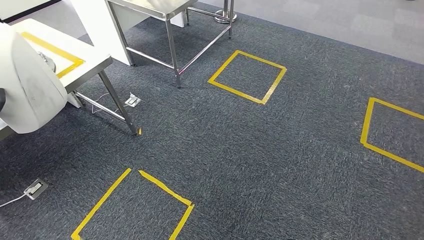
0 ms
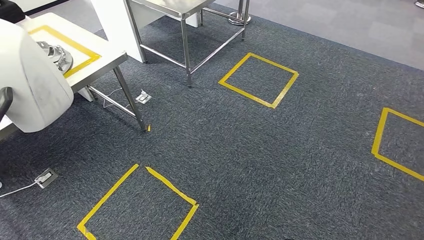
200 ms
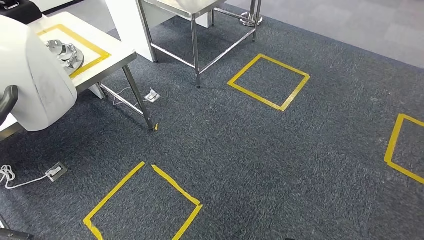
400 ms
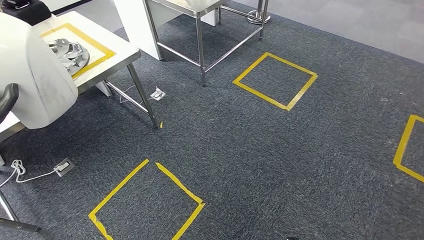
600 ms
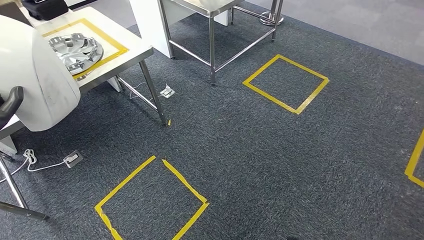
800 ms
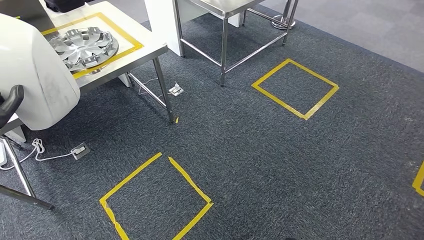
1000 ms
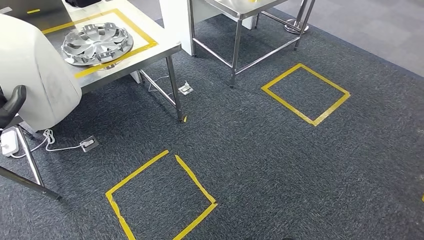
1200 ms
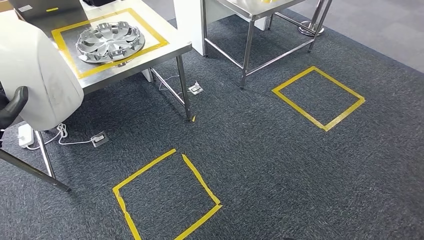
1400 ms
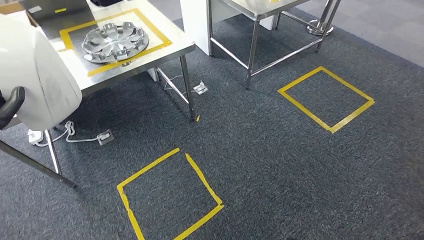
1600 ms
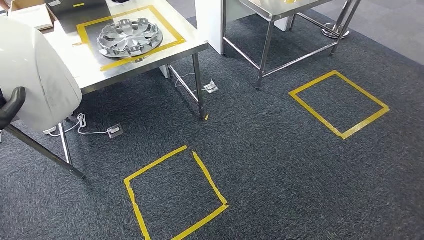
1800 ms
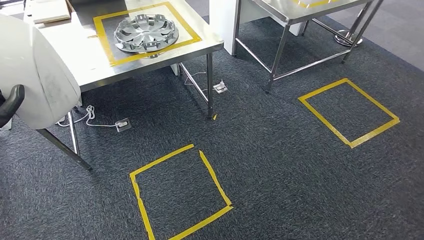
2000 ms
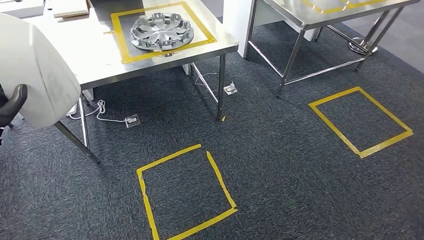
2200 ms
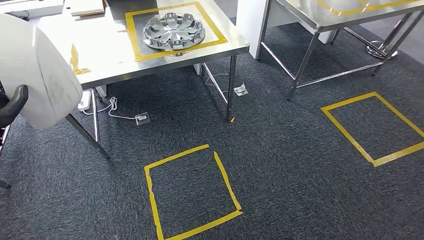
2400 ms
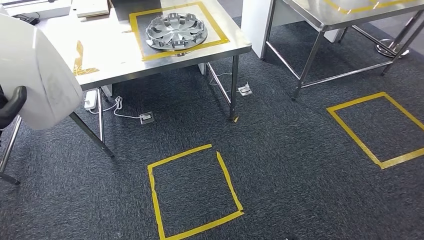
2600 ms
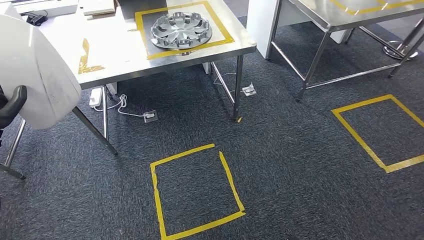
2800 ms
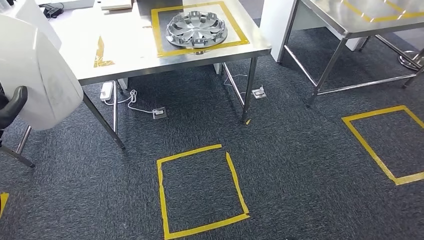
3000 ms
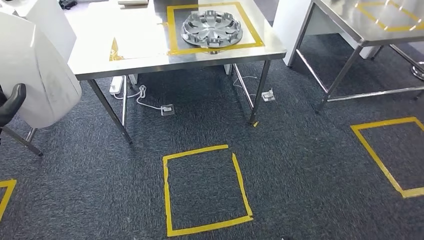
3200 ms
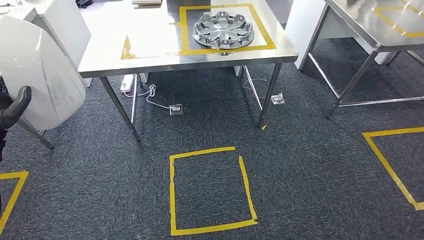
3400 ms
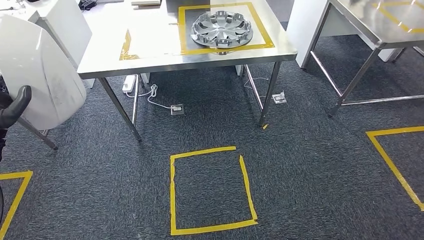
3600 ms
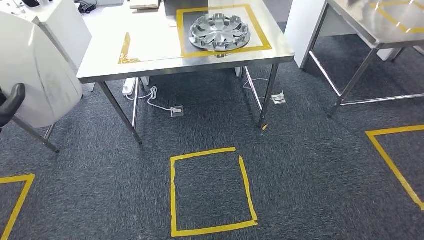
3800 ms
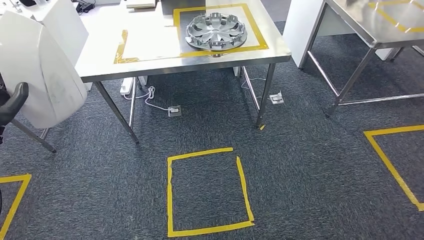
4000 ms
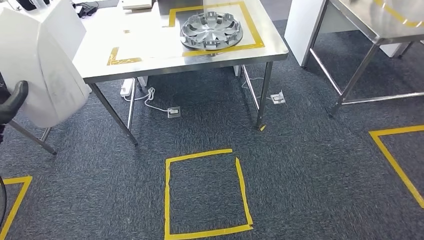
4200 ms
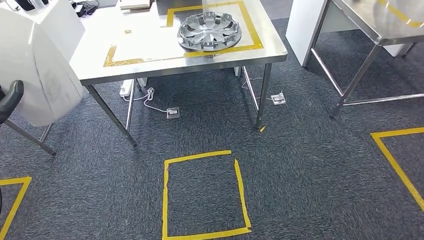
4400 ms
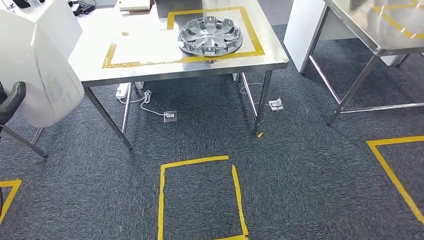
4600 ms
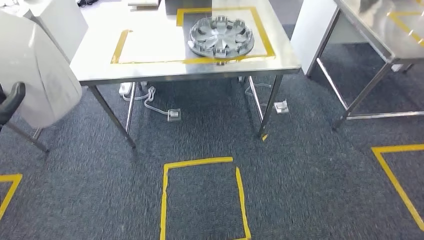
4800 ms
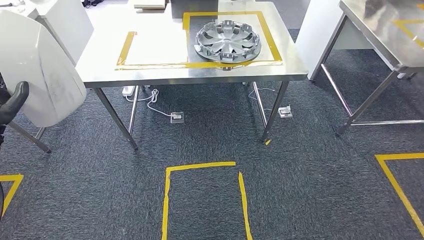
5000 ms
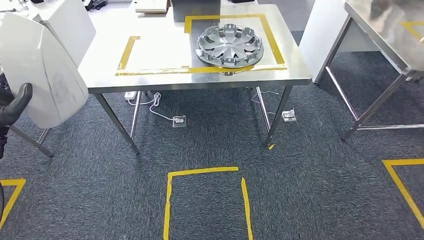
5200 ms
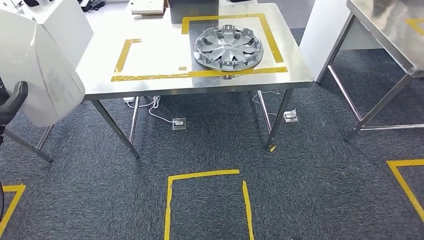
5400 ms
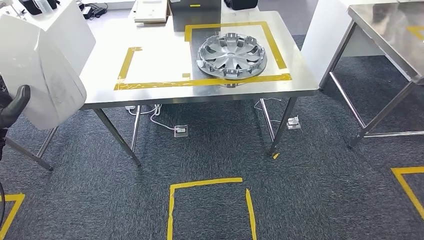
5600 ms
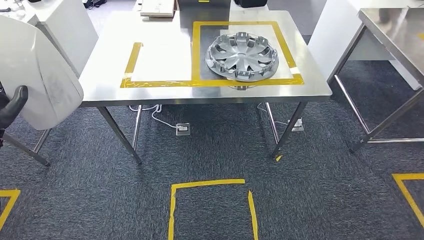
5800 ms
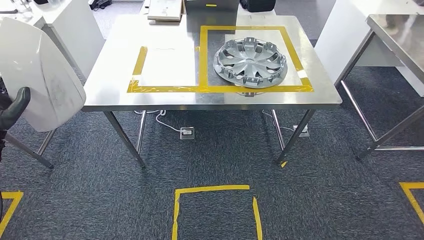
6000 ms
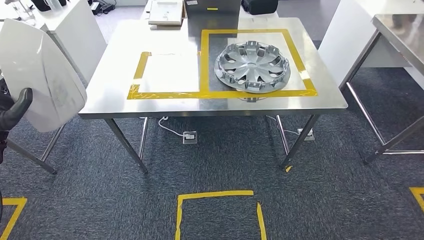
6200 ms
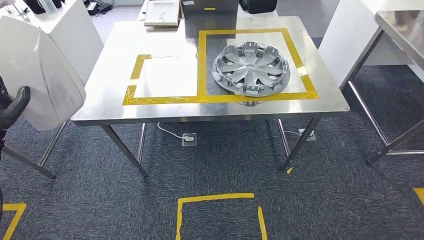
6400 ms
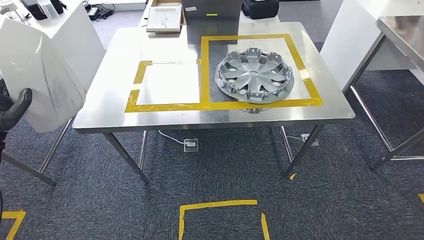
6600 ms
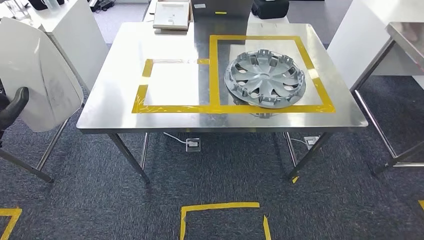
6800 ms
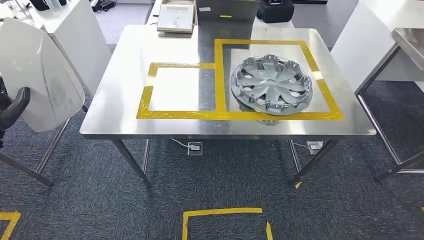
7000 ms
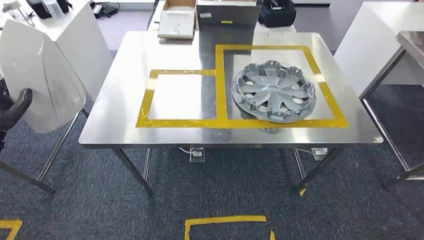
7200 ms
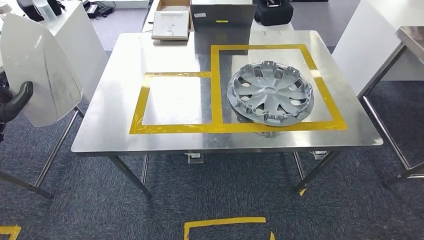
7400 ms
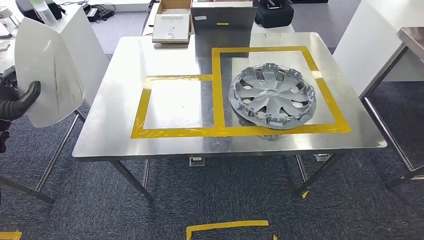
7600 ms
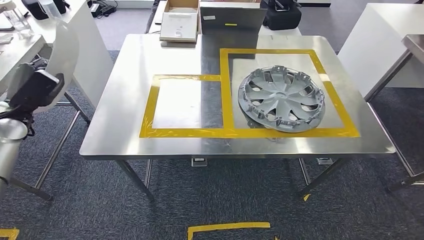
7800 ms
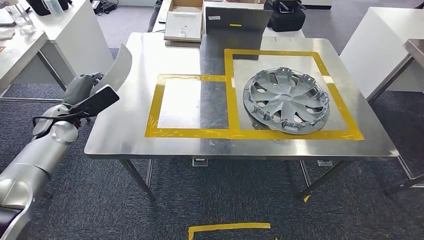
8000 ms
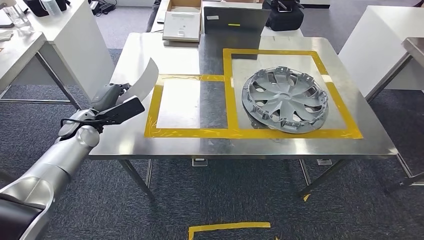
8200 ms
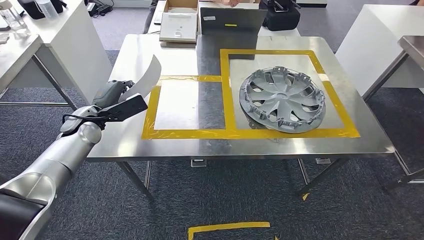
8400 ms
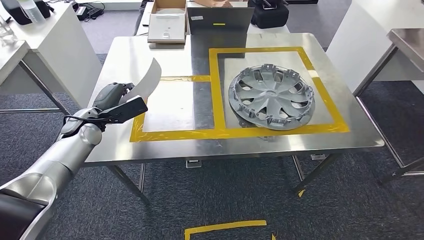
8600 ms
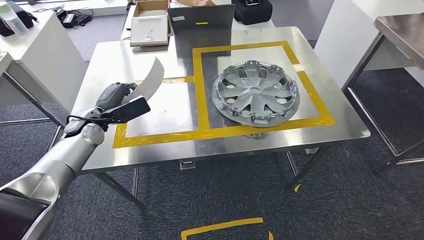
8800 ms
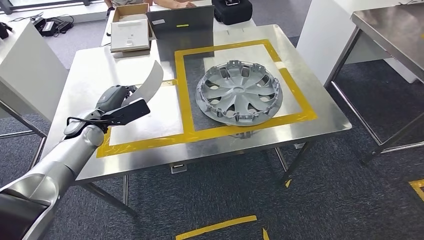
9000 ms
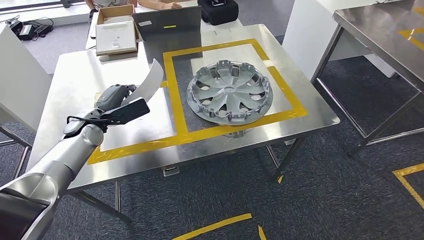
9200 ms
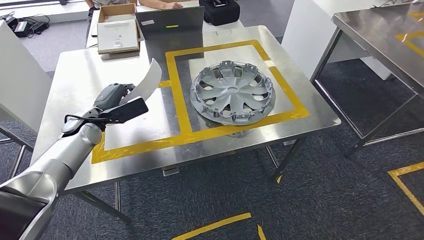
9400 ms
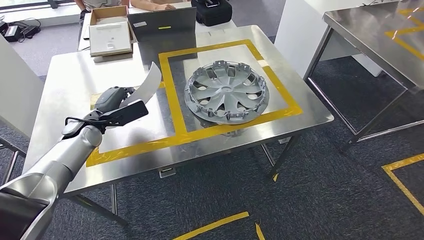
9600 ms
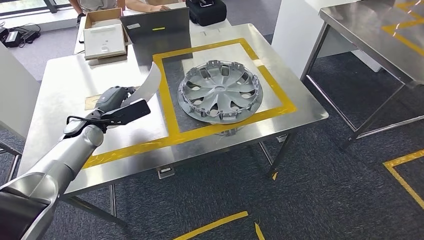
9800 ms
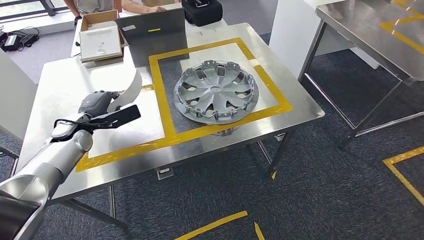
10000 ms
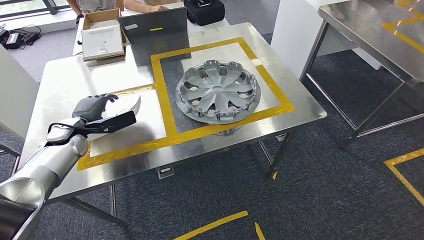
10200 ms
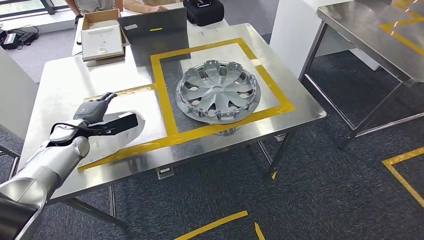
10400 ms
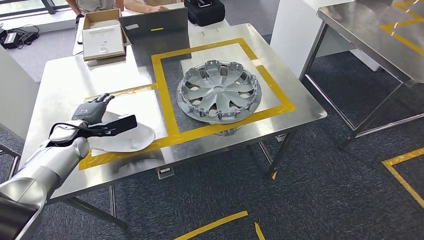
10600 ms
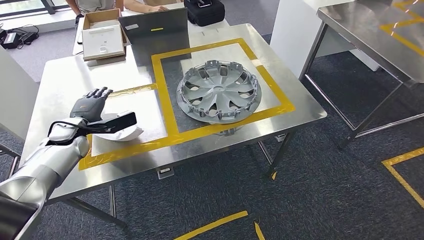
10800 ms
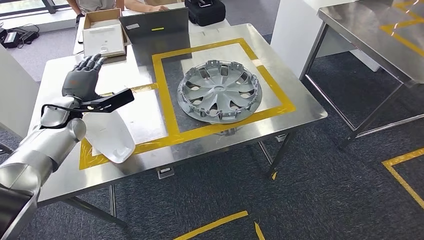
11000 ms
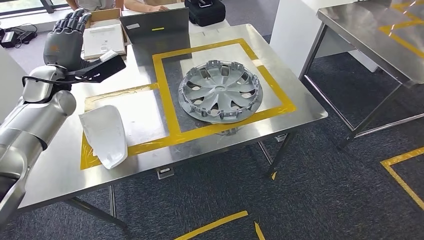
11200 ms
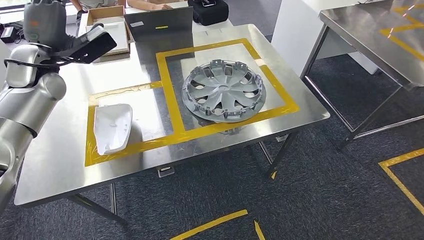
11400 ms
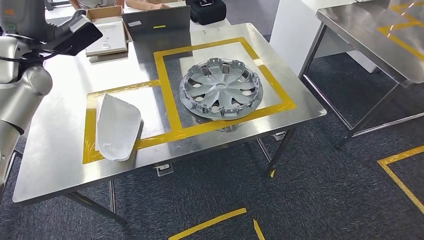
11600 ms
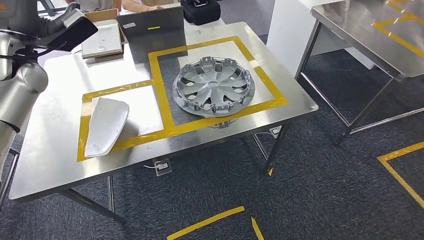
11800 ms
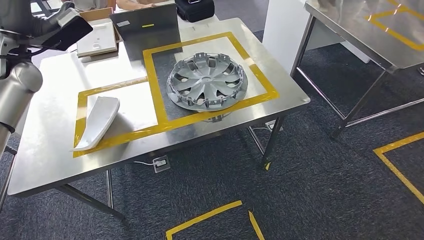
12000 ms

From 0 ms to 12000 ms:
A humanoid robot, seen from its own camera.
Step, from 0 ms to 7200 ms: Move the small component to the workbench.
Step, from 7400 ms to 11800 ms: Insert the small component into the corresponding slot on the workbench.

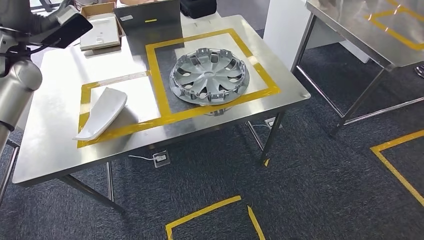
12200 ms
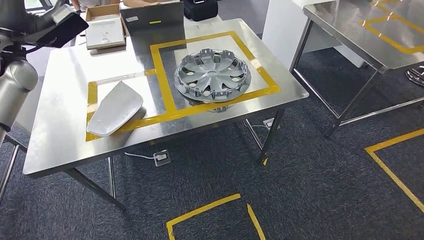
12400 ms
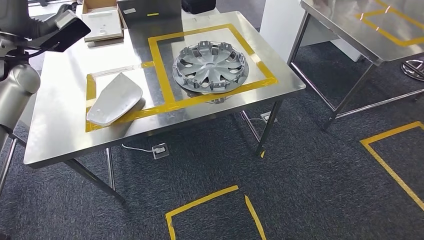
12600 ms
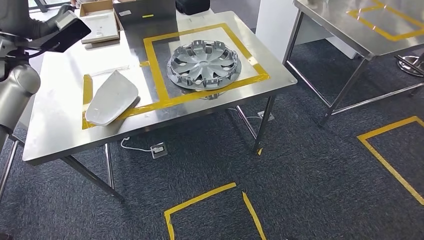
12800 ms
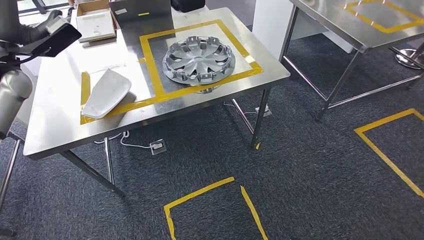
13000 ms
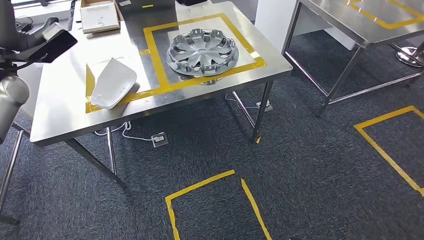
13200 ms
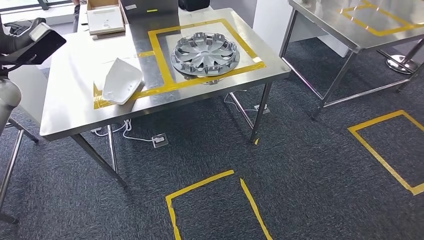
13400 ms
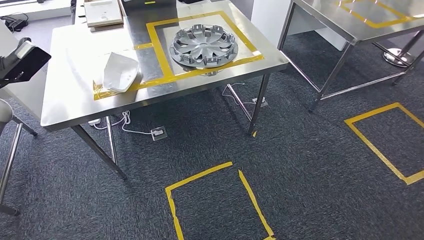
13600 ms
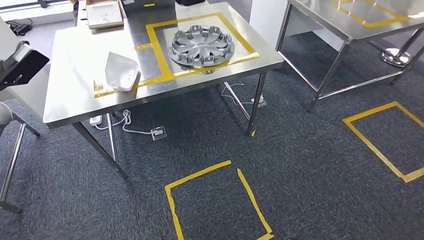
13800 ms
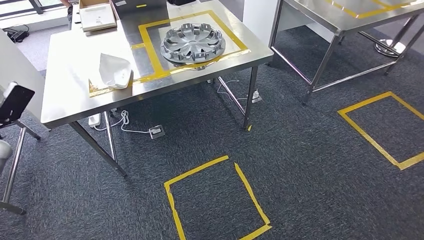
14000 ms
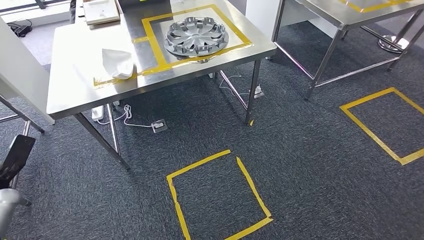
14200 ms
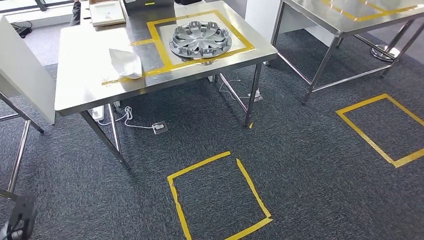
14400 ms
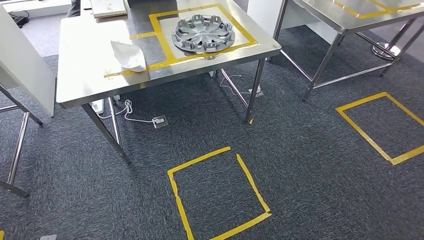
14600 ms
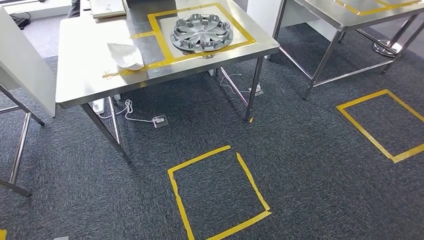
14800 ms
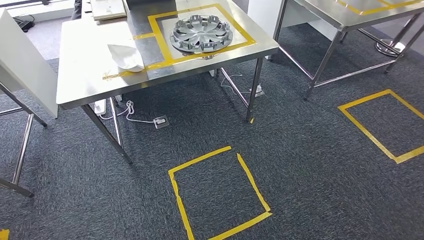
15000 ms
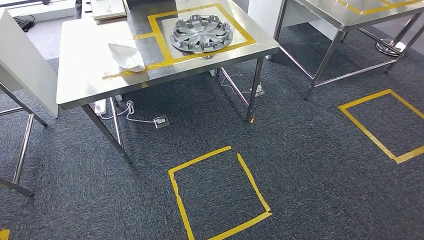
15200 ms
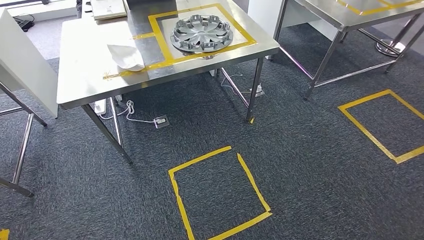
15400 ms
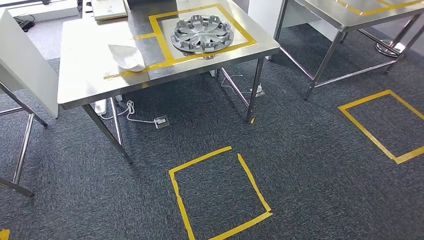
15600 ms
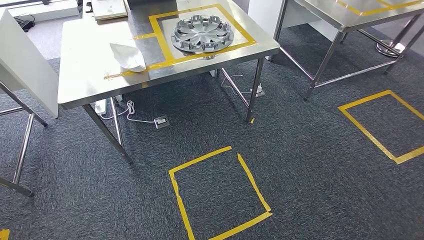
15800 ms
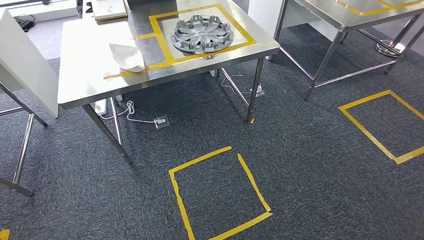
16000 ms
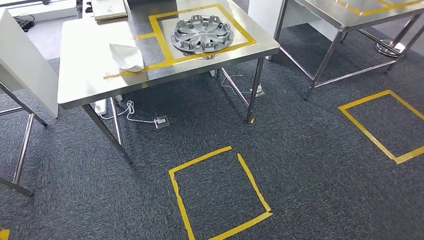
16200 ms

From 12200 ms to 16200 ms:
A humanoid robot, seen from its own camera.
Step, from 12200 ms to 16200 ms: Return to the initial position at the workbench.
From 14800 ms to 16200 ms: The left hand goes roughly 15 cm backward and to the right.

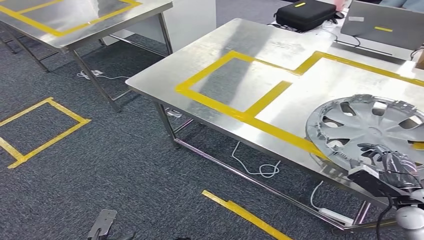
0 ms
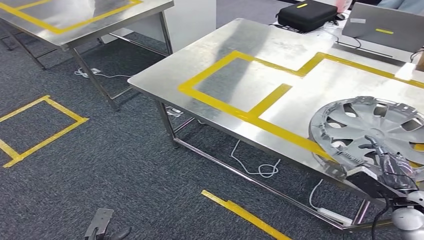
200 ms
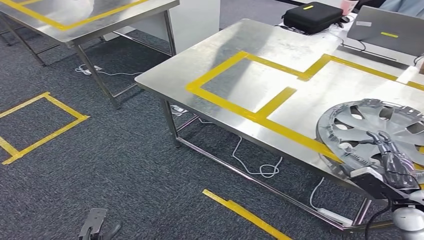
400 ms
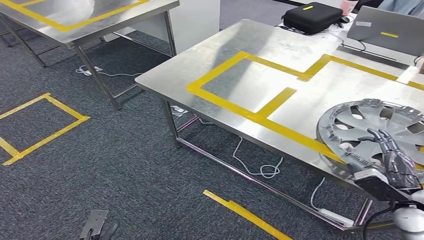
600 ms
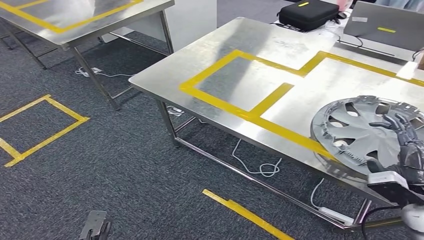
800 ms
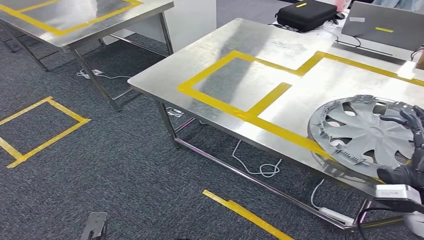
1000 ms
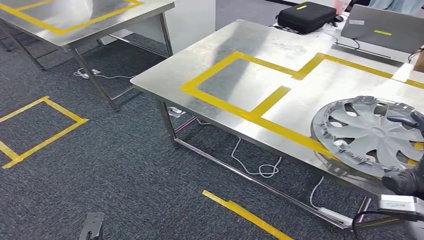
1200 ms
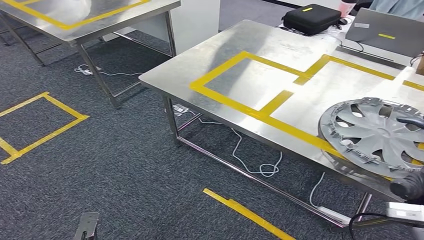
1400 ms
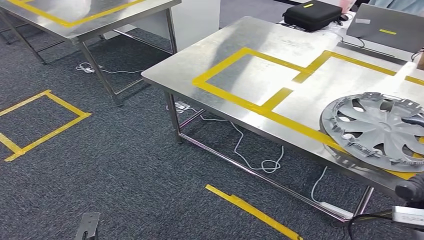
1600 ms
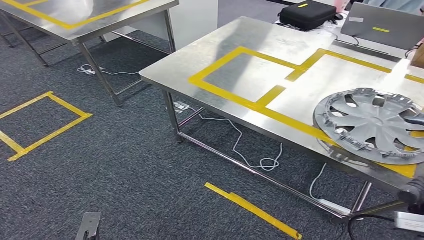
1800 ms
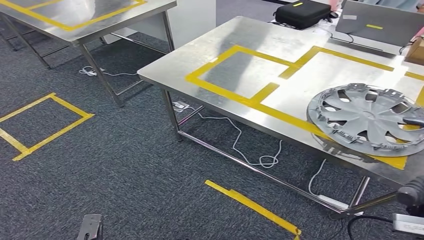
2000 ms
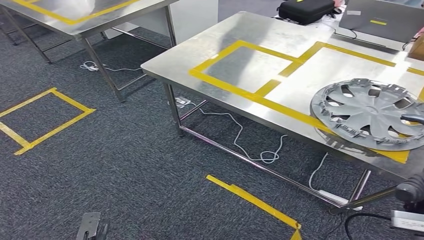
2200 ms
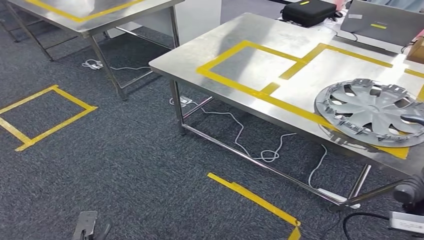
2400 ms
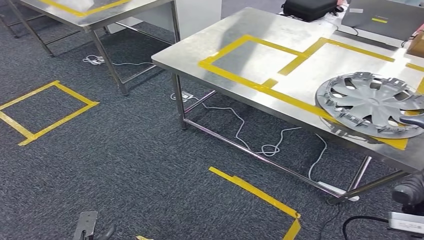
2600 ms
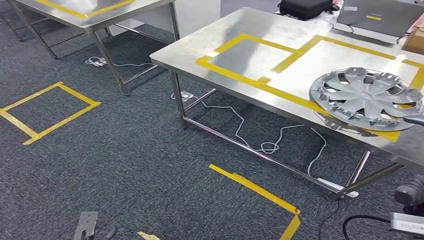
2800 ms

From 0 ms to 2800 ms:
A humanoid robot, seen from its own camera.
Step, from 0 ms to 2200 ms: Insert the small component into the corresponding slot on the workbench.
